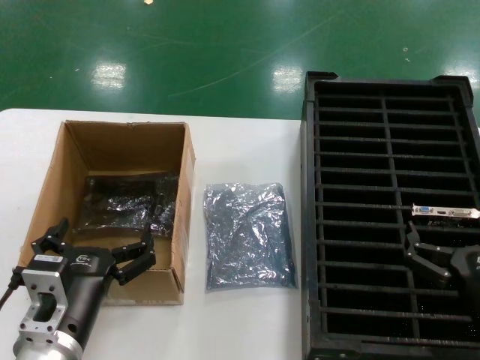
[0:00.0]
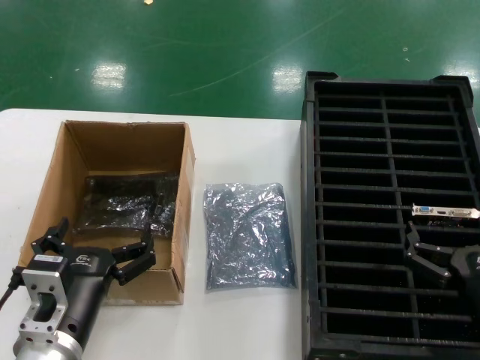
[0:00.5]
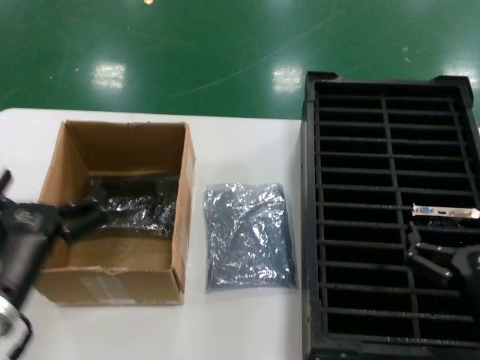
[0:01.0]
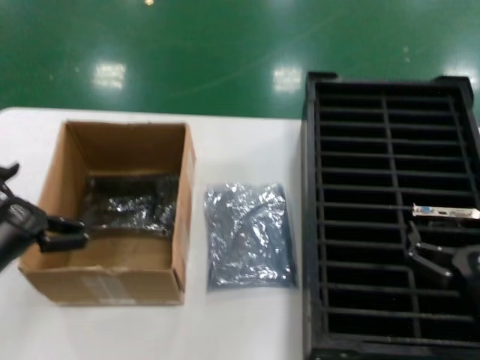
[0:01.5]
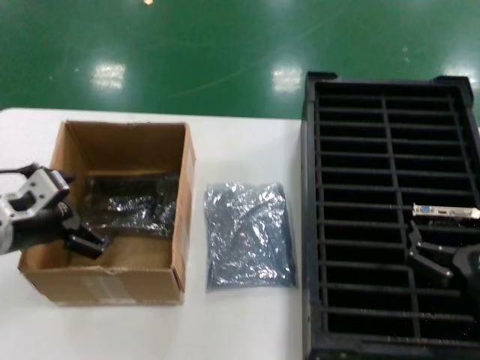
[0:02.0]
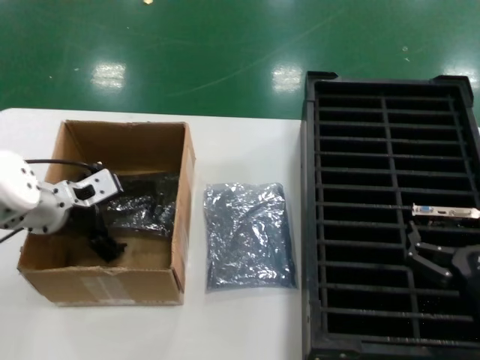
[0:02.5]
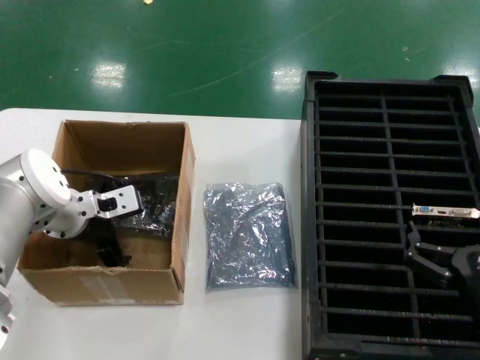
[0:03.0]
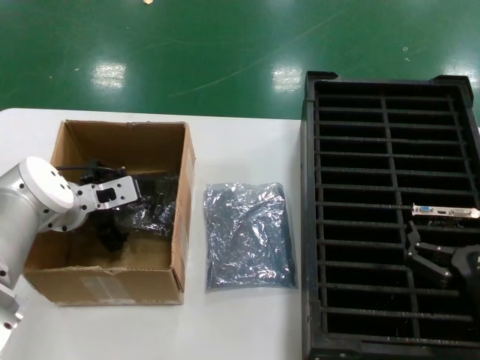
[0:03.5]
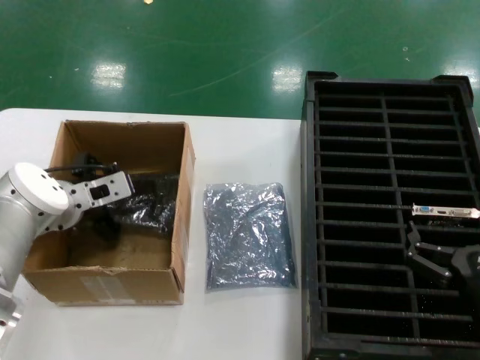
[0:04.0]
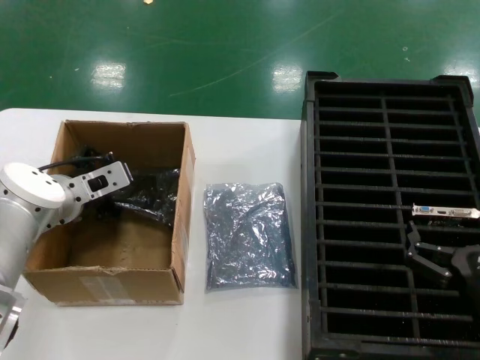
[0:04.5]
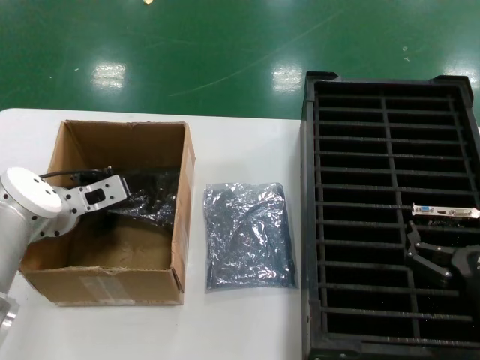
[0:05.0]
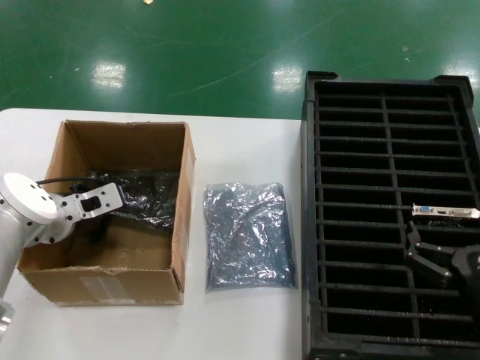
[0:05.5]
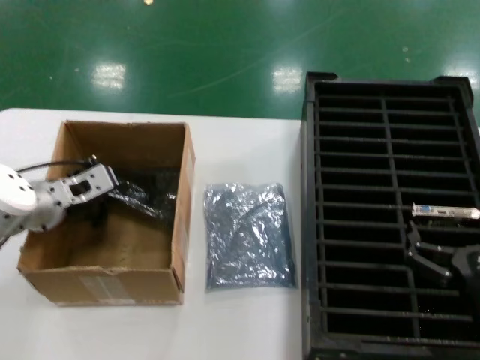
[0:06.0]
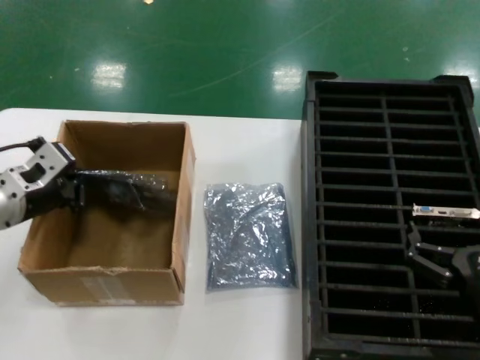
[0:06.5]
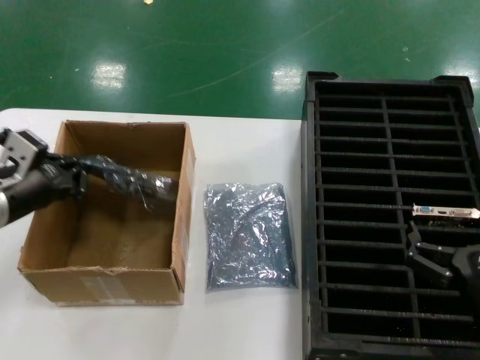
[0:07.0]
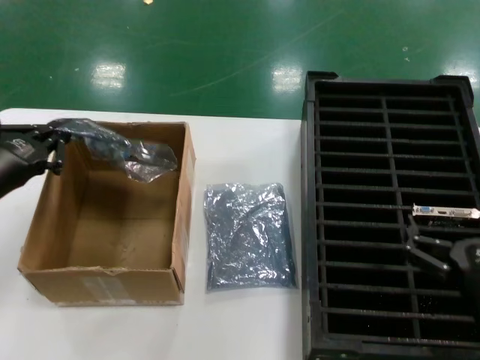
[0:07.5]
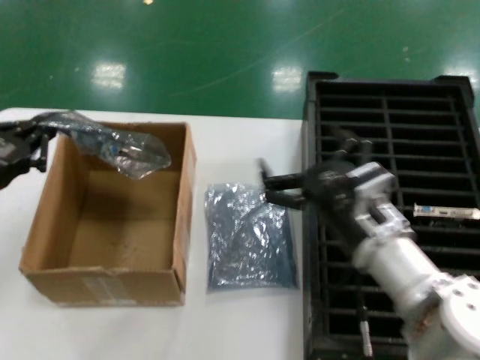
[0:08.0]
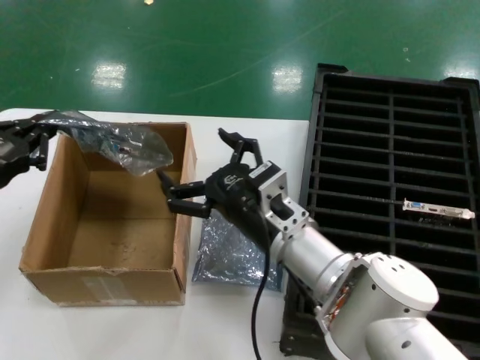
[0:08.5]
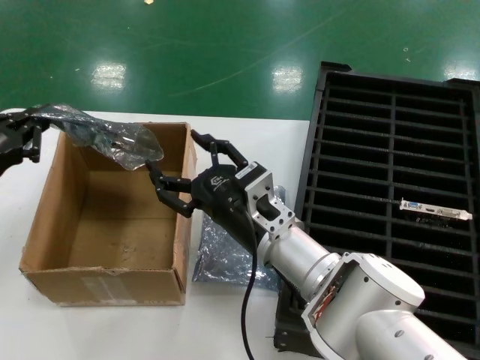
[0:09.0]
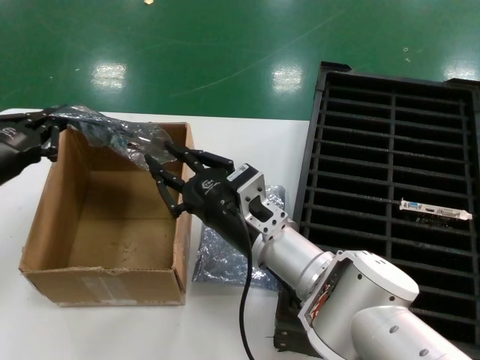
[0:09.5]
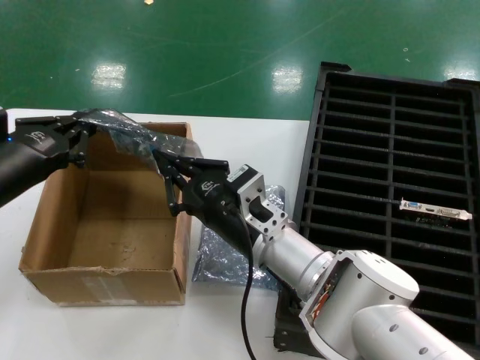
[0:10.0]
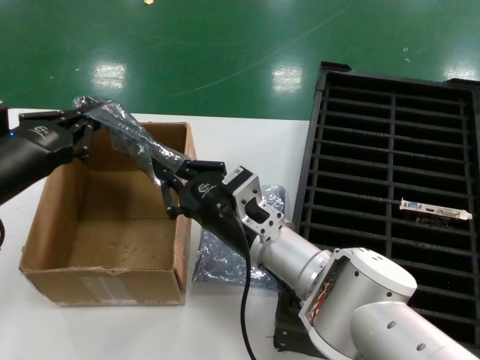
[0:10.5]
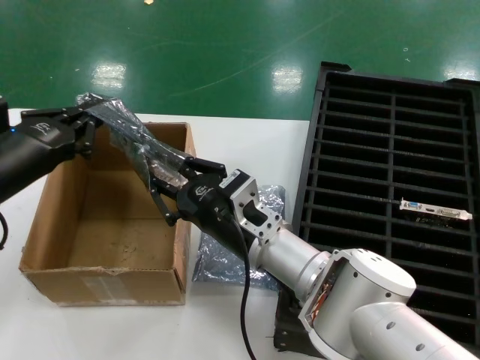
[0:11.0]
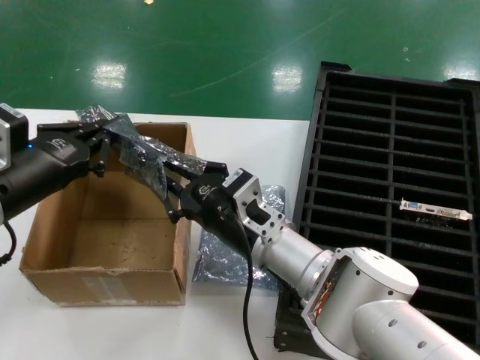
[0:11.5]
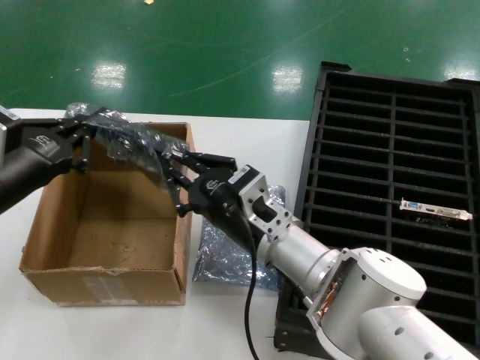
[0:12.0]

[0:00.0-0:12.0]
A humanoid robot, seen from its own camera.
Task of the whole recording: take out graphics card from box remove packaging put into black container.
Step, 0:00.0 to 0:04.0: Grasp the bag.
Step, 0:04.5 to 0:07.5: Lift the bag.
0:00.0 to 0:02.0: The left hand travels to the left, forward and upward by roughly 20 cm.
0:02.0 to 0:04.0: The left hand heads forward and to the right, covering about 15 cm.
0:04.0 to 0:06.0: There are only small adjustments of the hands.
0:06.0 to 0:08.0: The right hand is displaced to the left and forward by approximately 15 cm; the left hand heads backward and upward, covering about 15 cm.
0:08.0 to 0:10.0: The right hand moves to the left, approximately 15 cm.
0:10.0 to 0:12.0: The hands move only a little.

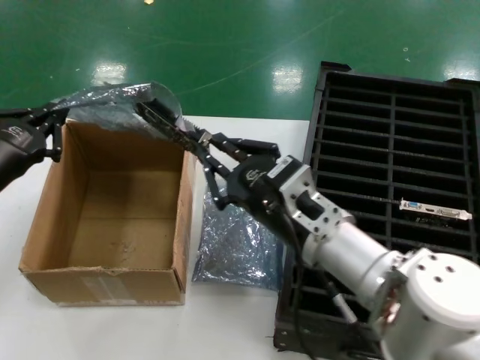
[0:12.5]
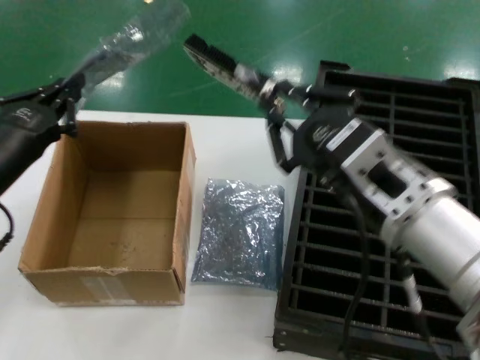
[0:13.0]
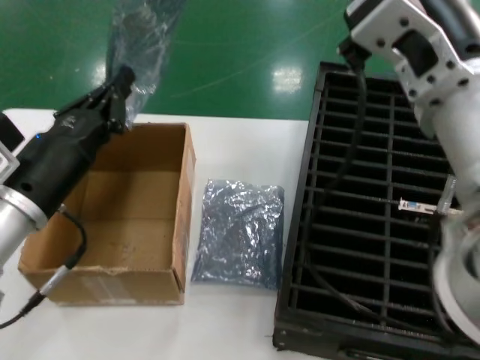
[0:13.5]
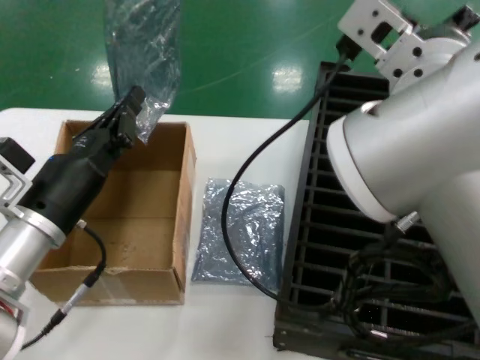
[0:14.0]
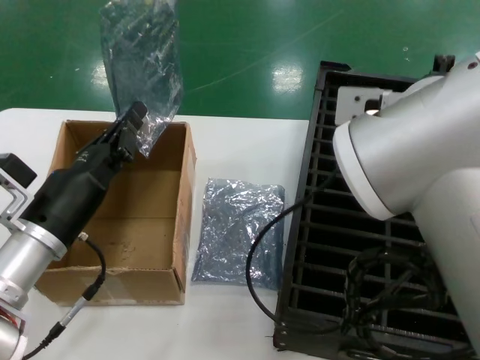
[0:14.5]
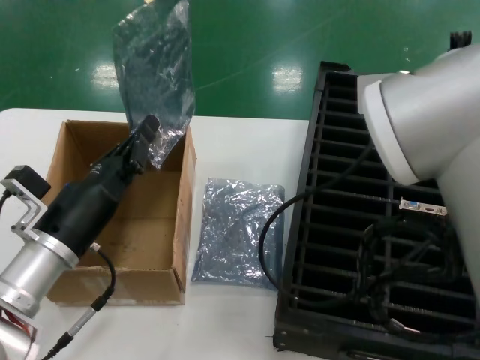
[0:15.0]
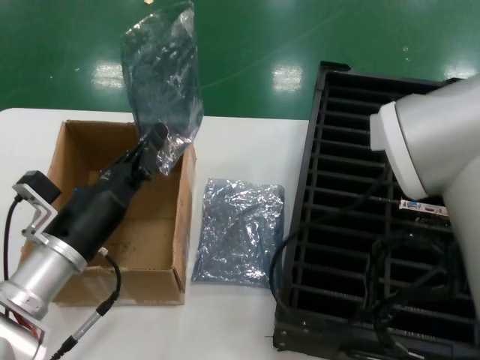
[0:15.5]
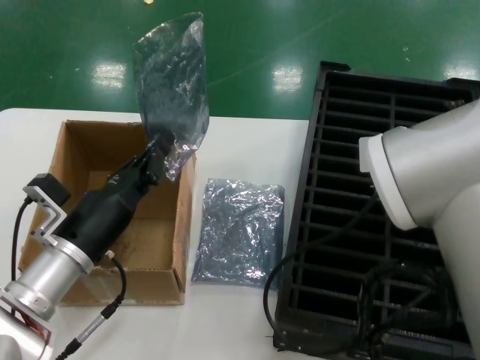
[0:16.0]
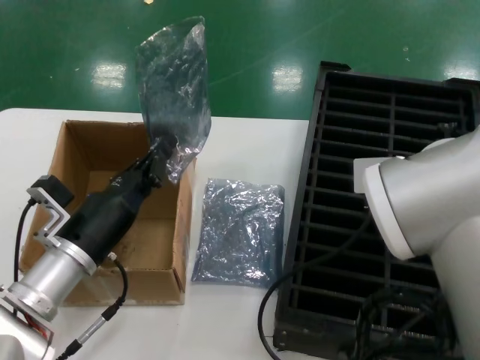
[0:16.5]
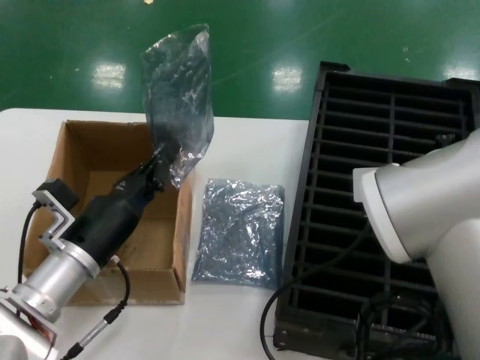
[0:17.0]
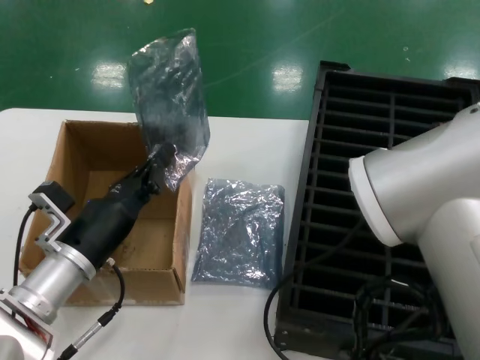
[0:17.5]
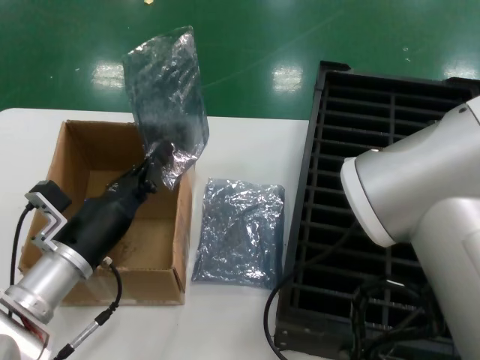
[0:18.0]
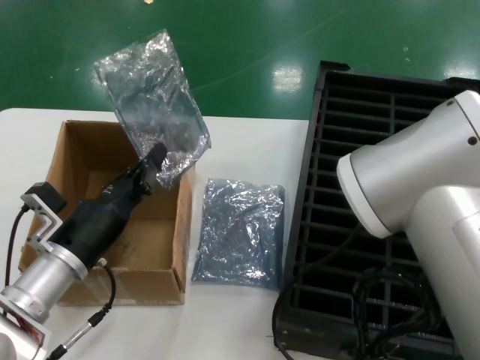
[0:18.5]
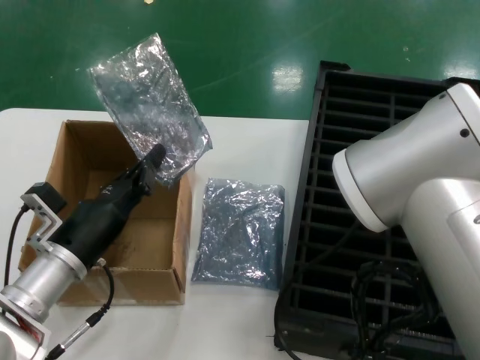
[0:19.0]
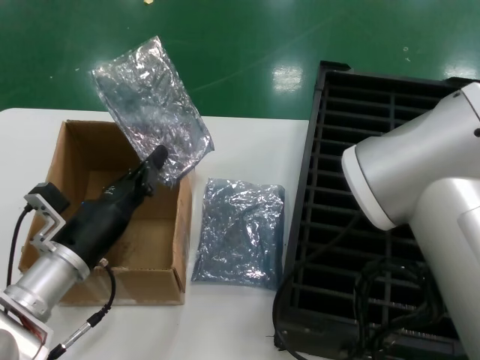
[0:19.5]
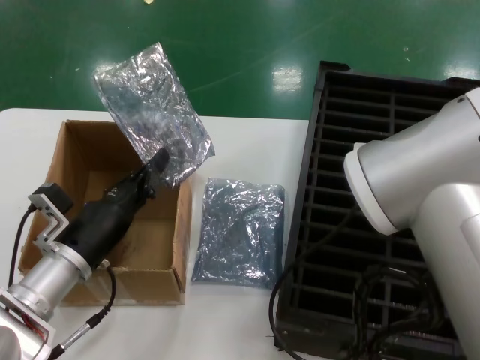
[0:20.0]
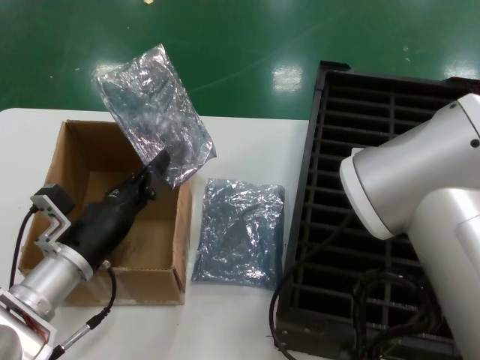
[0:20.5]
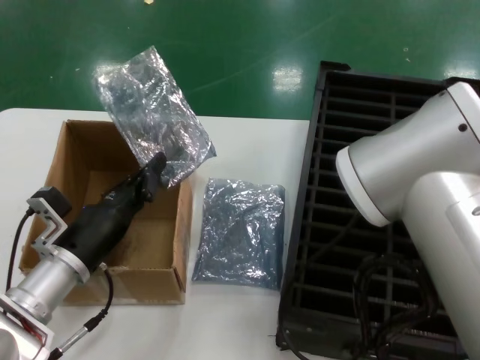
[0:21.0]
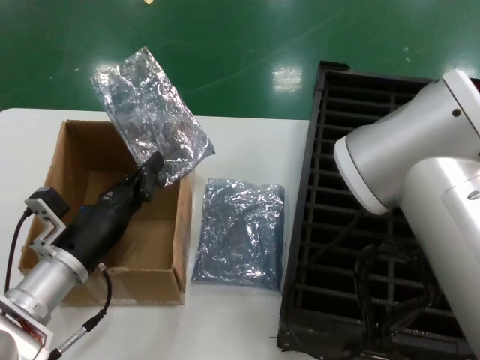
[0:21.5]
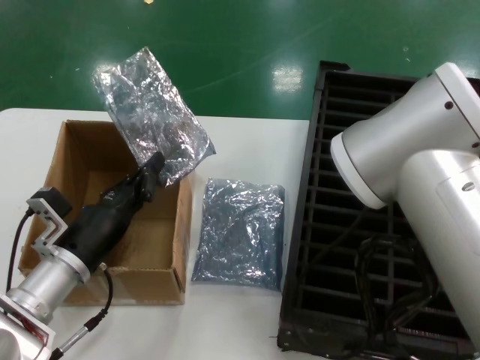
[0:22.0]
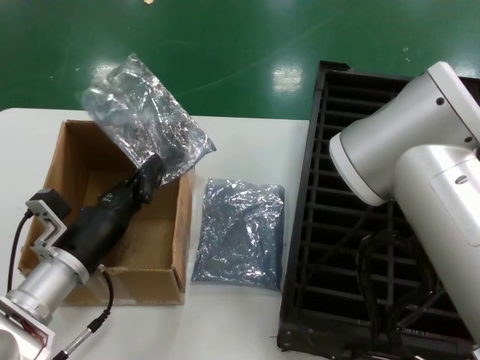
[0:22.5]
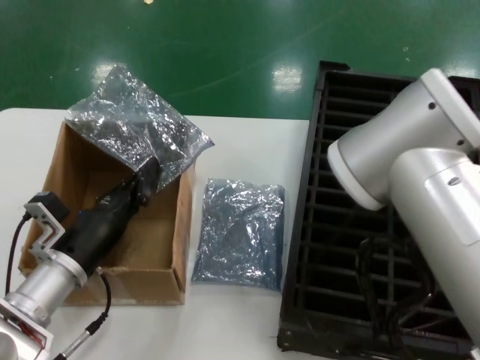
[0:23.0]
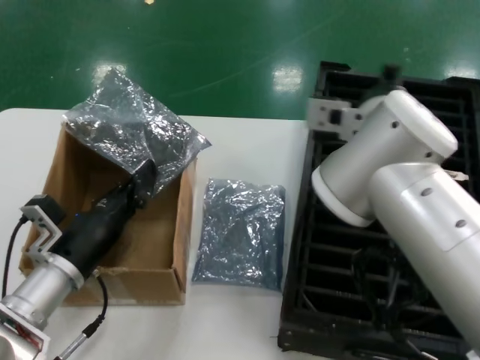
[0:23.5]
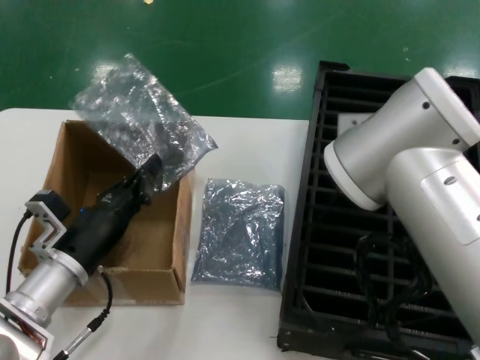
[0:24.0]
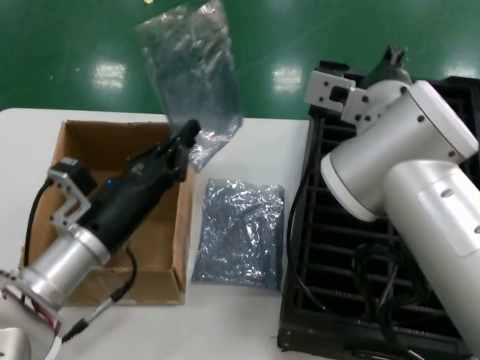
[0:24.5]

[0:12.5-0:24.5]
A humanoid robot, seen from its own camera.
Task of the whole recording: take out graphics card from box remove packaging put into black container.
0:12.5 to 0:14.5: The left hand moves downward and to the right, some 10 cm. The right hand moves upward, some 20 cm.
0:14.5 to 0:16.5: The right hand heads downward, covering roughly 5 cm.
0:18.5 to 0:22.5: The hands make only small movements.
0:22.5 to 0:24.5: The left hand travels upward by some 5 cm.

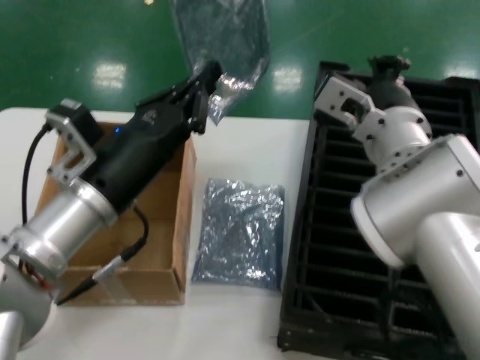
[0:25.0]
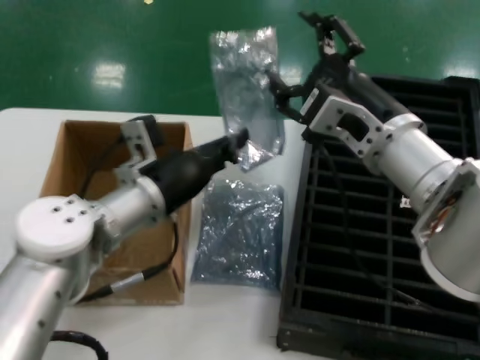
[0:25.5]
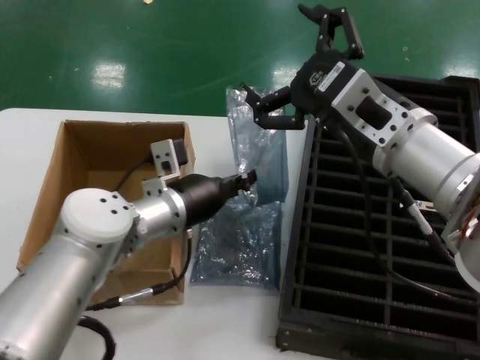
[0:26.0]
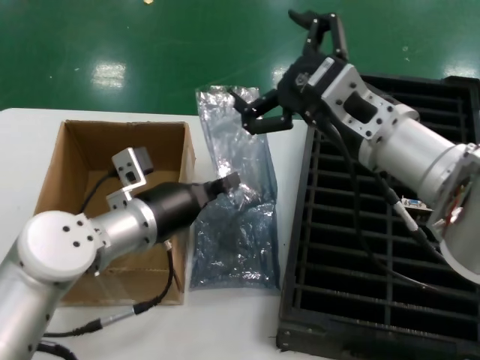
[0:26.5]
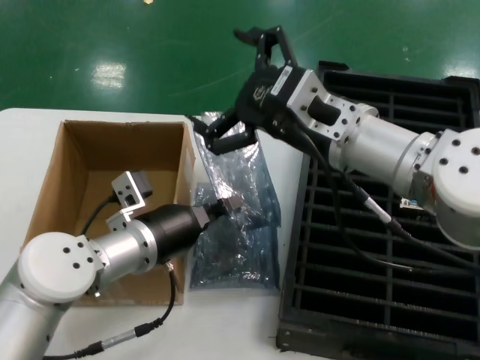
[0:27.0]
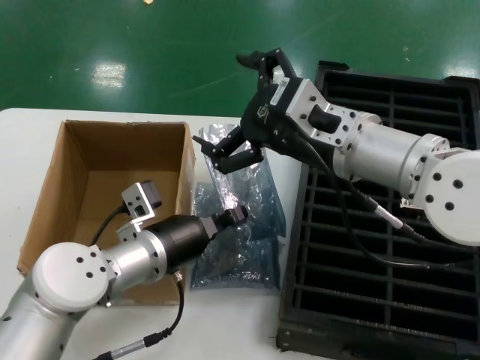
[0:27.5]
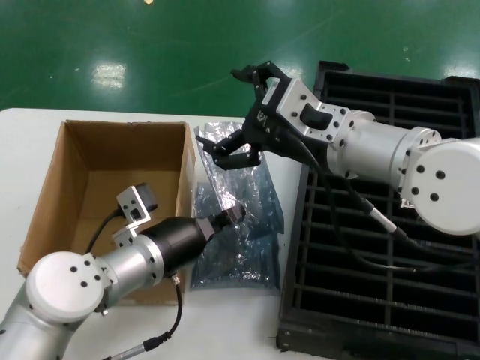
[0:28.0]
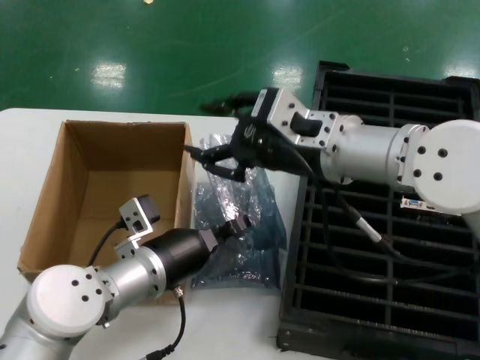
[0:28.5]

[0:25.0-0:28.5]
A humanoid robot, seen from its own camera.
Task of the whole recording: take out graphics card from box remove packaging put into black container.
0:25.0 to 0:27.0: The left hand goes about 5 cm downward.
